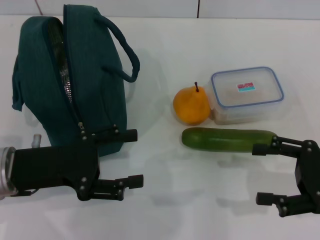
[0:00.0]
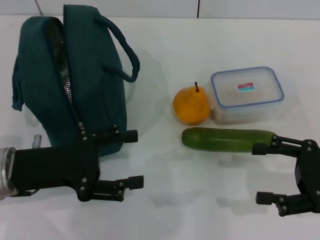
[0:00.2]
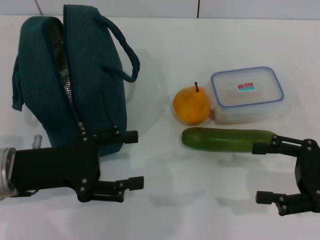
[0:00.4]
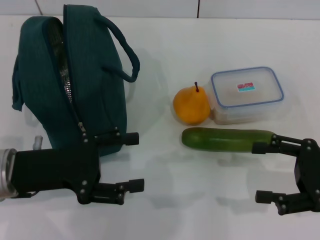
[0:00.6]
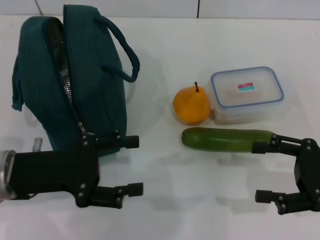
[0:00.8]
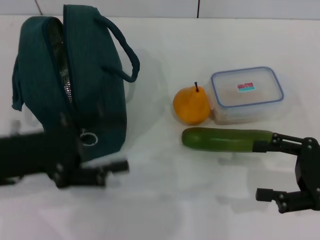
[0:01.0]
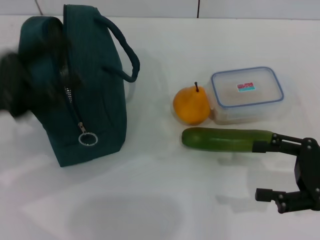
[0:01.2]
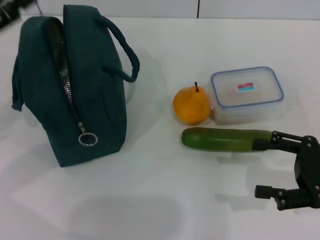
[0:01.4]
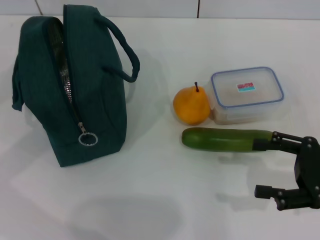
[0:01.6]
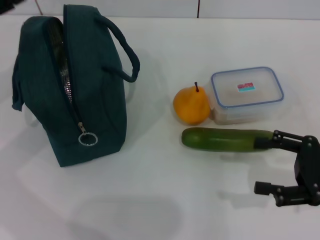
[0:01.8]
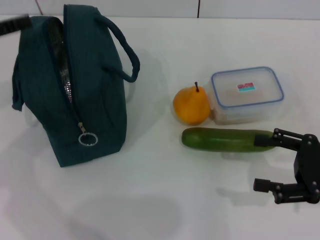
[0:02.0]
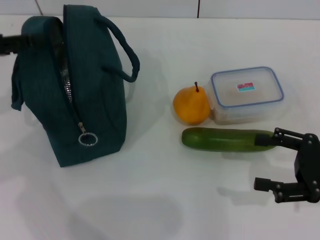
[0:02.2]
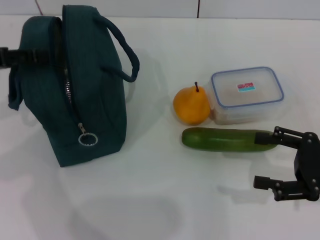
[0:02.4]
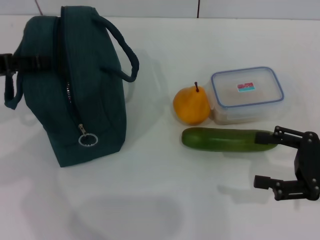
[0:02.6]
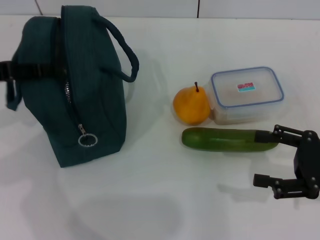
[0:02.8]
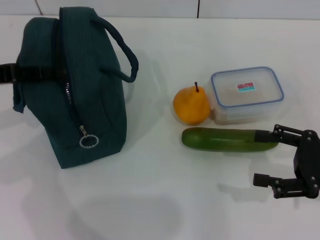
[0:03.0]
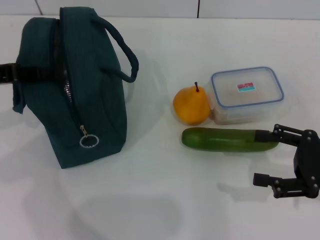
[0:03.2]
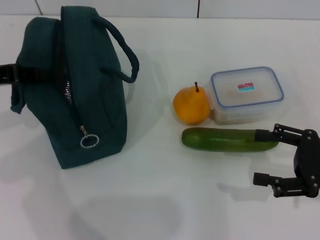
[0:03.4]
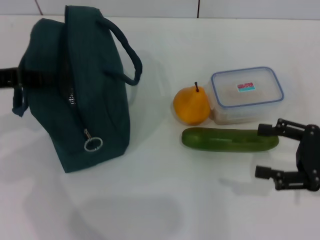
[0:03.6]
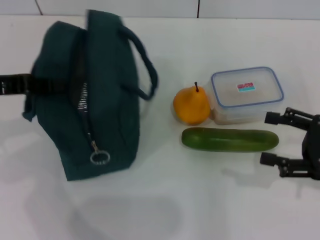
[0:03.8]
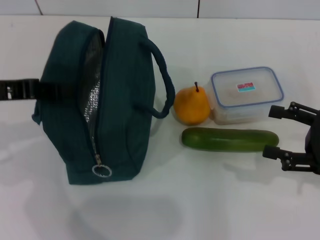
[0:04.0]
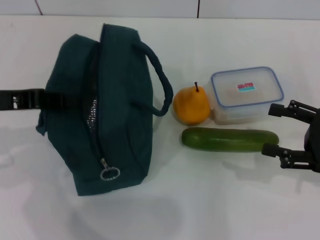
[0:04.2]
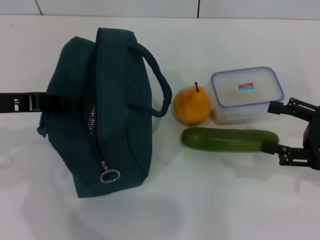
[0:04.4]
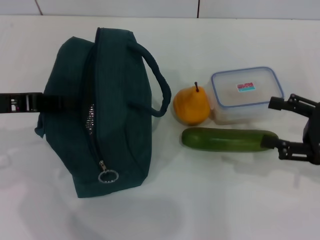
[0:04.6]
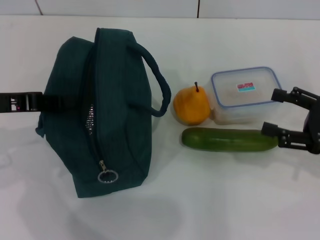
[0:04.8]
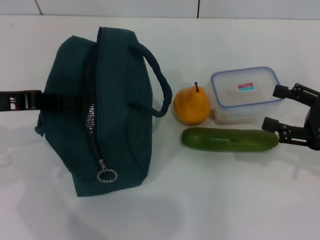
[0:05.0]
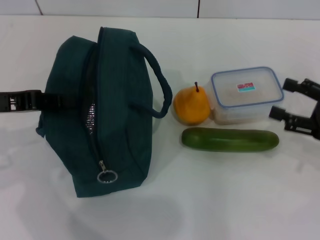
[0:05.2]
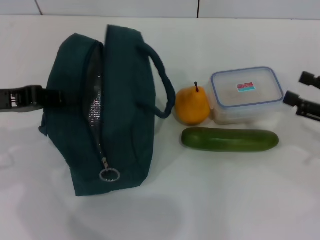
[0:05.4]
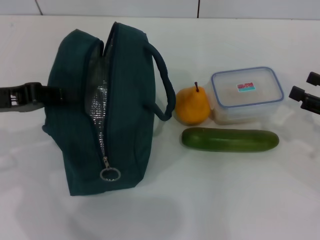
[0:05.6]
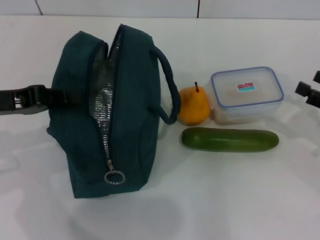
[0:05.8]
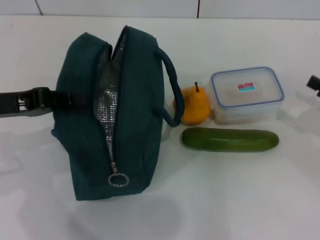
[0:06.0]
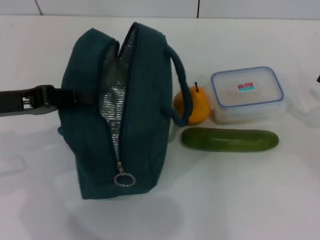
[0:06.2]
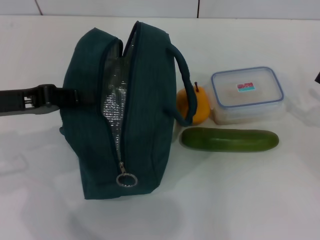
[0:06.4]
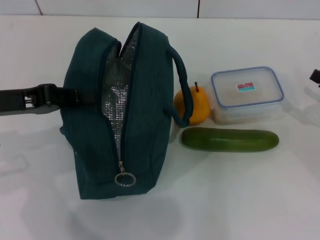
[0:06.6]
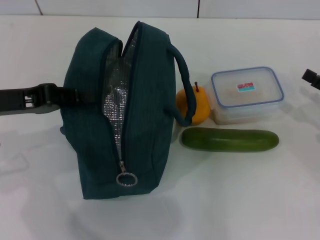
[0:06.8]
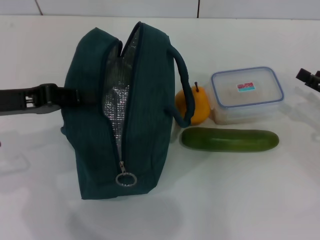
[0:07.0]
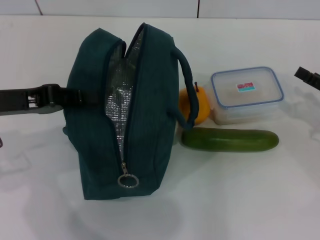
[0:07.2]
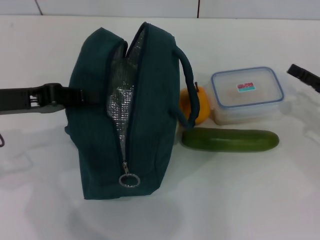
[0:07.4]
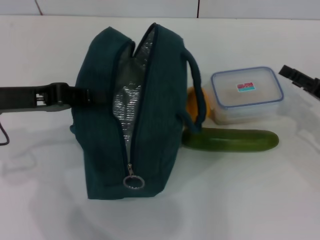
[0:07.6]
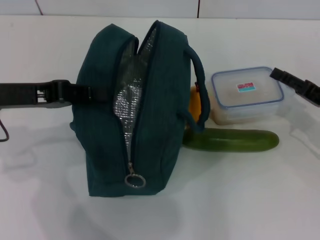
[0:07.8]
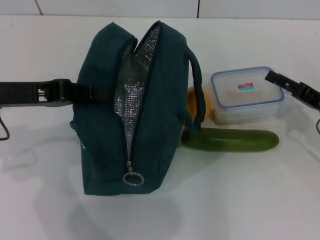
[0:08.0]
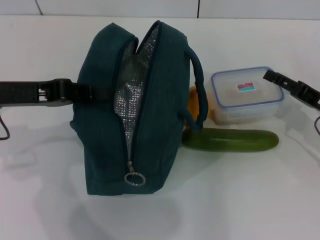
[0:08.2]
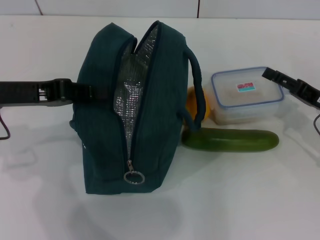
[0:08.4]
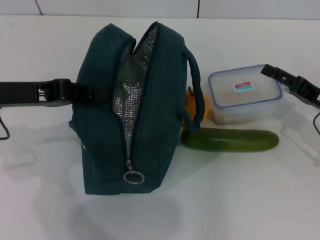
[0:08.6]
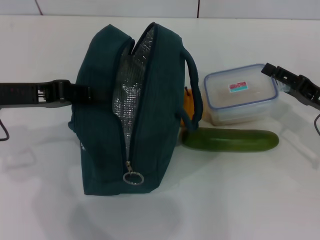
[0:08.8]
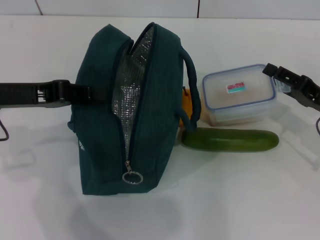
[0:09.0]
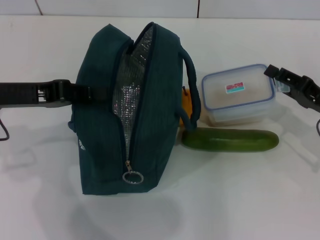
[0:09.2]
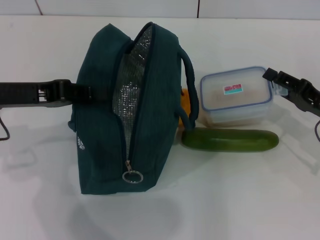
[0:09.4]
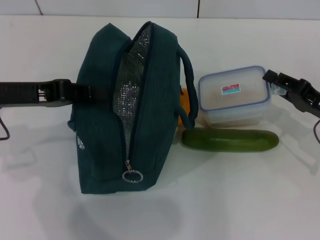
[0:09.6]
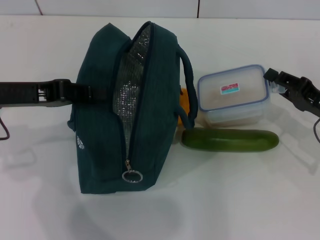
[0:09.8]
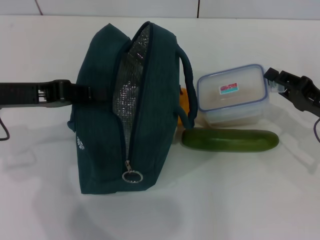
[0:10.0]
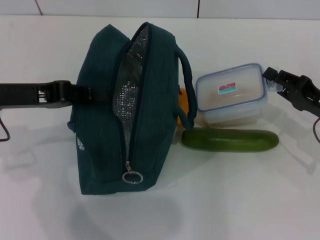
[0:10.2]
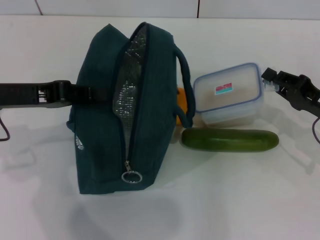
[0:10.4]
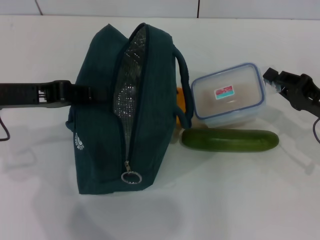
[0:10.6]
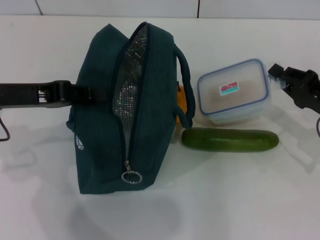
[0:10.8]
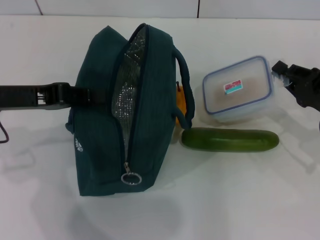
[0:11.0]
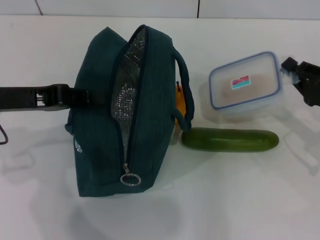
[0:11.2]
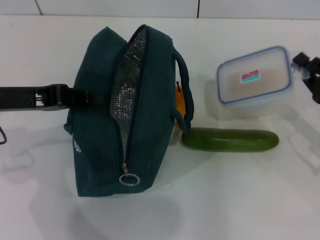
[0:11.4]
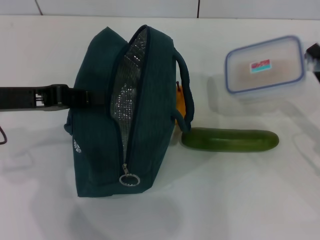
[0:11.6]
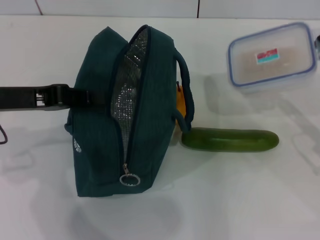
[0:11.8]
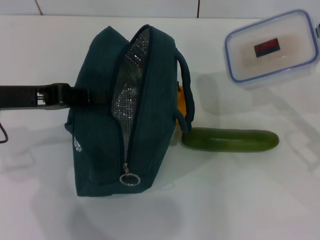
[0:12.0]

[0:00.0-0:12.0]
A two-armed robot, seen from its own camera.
Step, 0:00.0 to 0:04.4: Hold the lunch bag with your left hand.
Step, 0:04.6 to 0:10.4: Pick up the lunch box with your right hand.
0:00.0 to 0:01.6: The left gripper shifts approximately 15 cm to the left, forward and upward.
0:03.0 to 0:04.4: The left gripper closes its fingers.
0:04.4 to 0:06.0: The right gripper goes about 5 cm to the right.
0:06.0 to 0:07.6: The right gripper shifts by roughly 5 cm.
0:07.6 to 0:09.0: The grippers move only a little.
0:09.0 to 0:10.4: The right gripper closes.

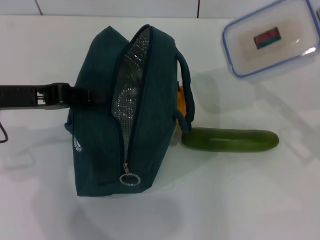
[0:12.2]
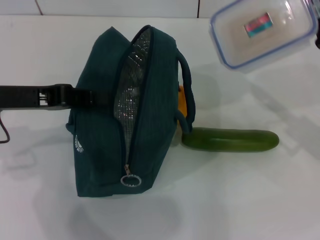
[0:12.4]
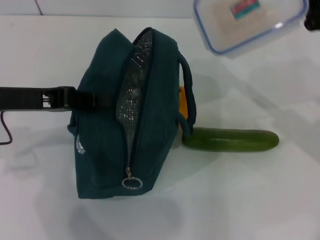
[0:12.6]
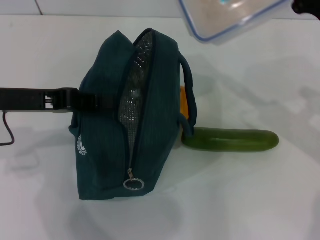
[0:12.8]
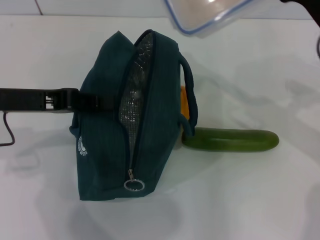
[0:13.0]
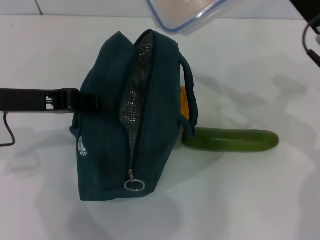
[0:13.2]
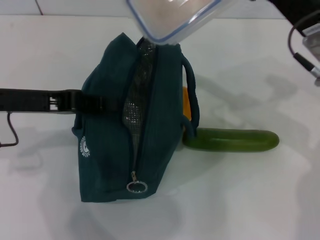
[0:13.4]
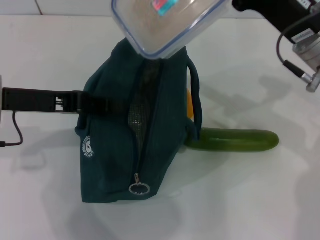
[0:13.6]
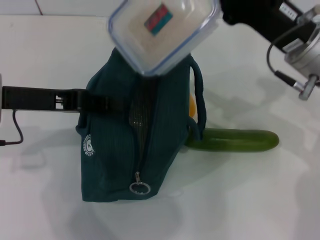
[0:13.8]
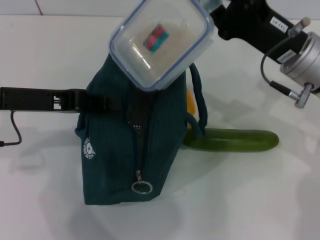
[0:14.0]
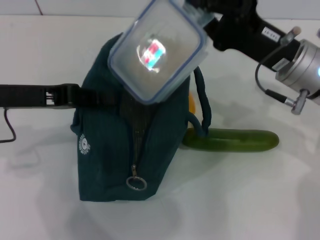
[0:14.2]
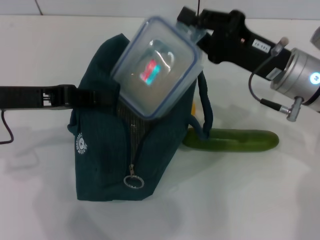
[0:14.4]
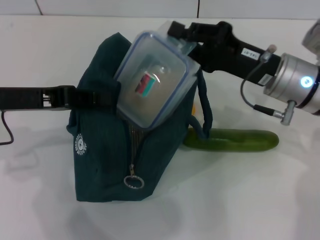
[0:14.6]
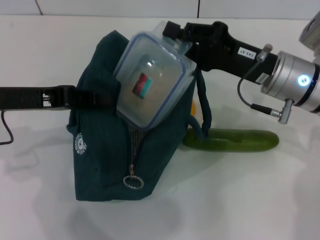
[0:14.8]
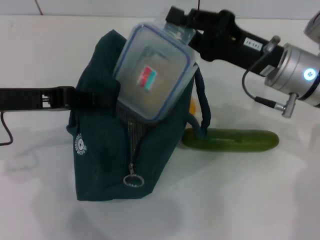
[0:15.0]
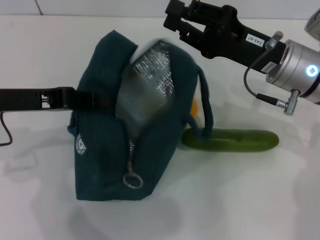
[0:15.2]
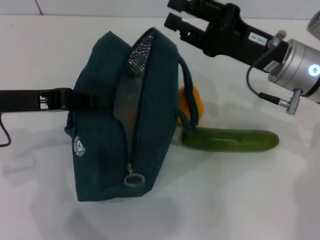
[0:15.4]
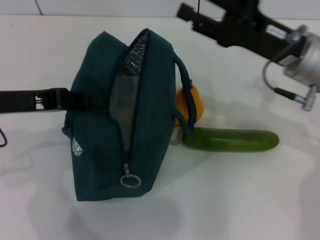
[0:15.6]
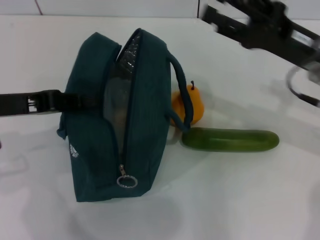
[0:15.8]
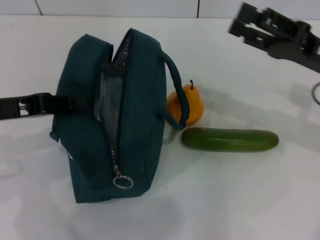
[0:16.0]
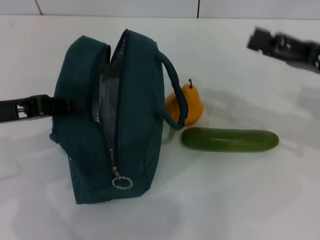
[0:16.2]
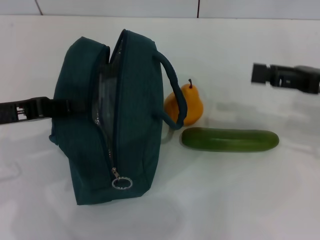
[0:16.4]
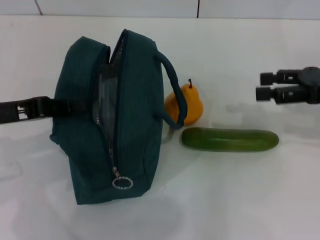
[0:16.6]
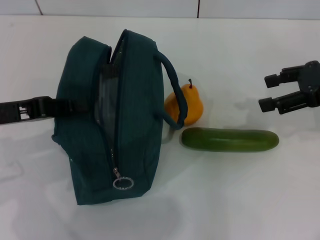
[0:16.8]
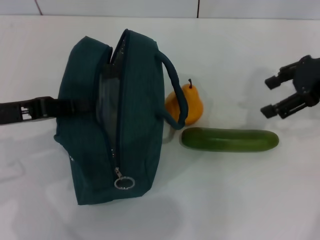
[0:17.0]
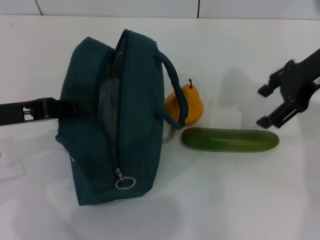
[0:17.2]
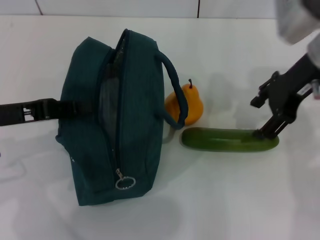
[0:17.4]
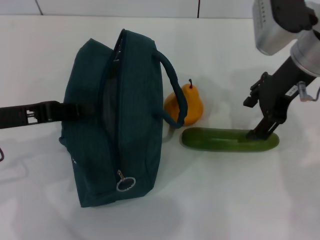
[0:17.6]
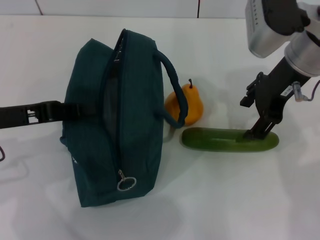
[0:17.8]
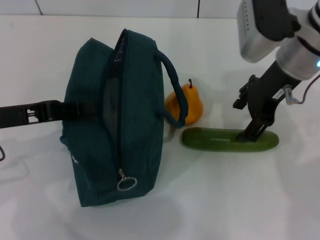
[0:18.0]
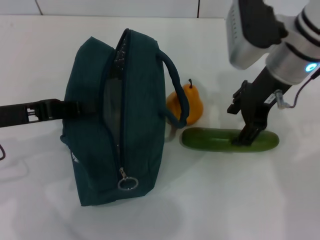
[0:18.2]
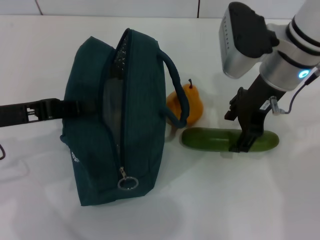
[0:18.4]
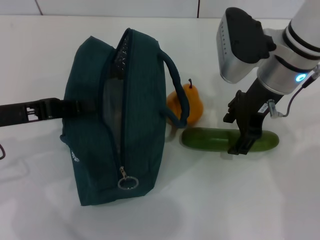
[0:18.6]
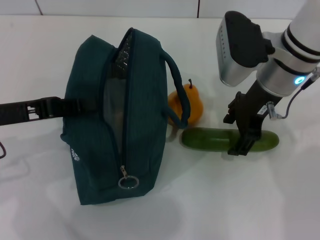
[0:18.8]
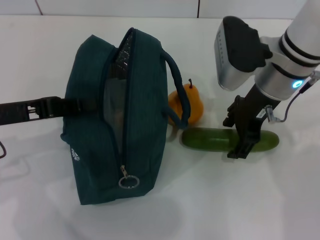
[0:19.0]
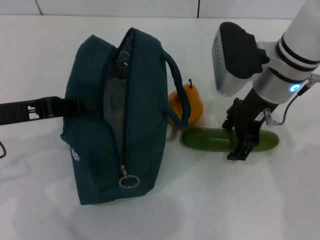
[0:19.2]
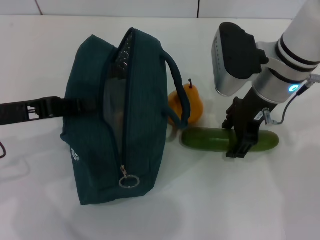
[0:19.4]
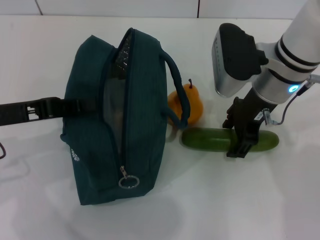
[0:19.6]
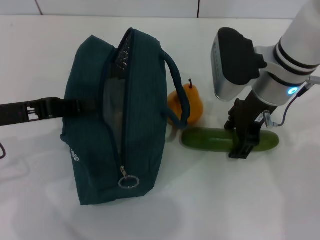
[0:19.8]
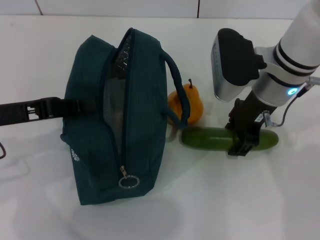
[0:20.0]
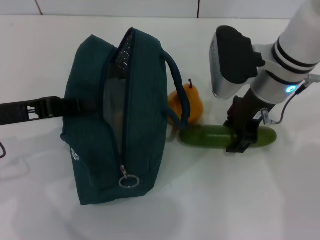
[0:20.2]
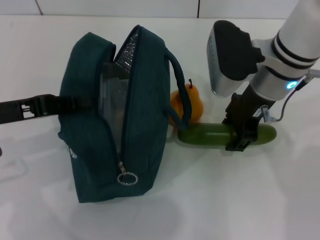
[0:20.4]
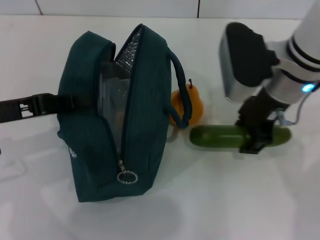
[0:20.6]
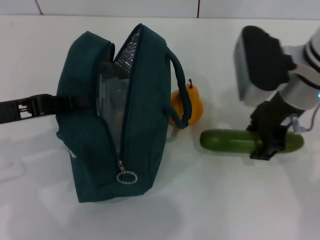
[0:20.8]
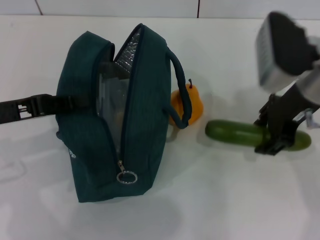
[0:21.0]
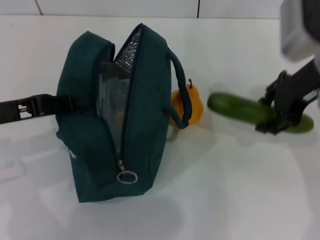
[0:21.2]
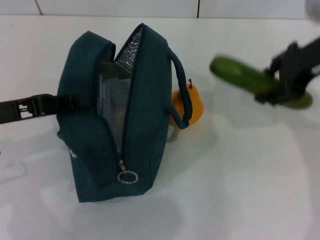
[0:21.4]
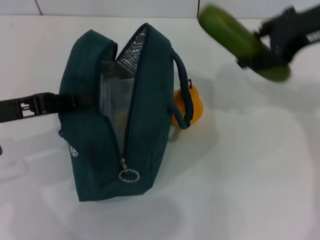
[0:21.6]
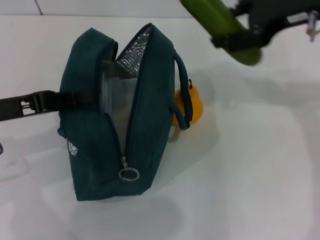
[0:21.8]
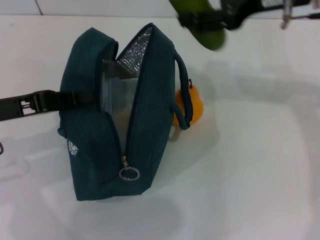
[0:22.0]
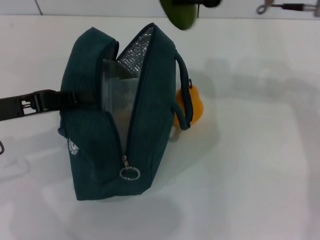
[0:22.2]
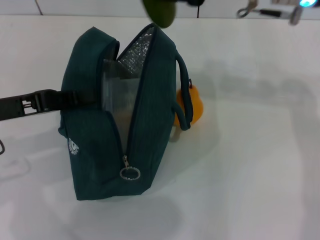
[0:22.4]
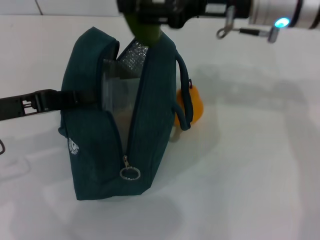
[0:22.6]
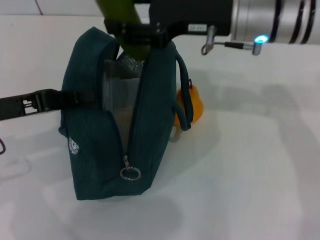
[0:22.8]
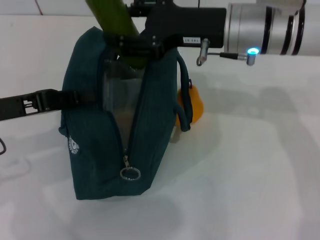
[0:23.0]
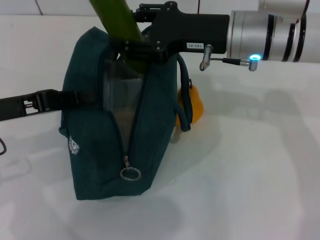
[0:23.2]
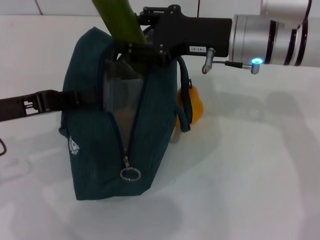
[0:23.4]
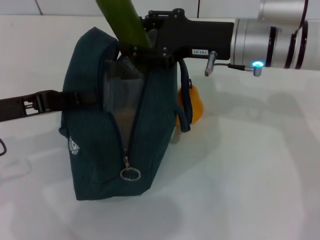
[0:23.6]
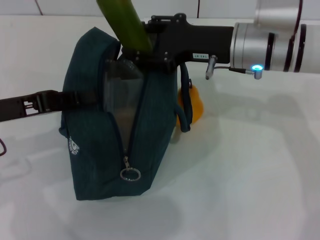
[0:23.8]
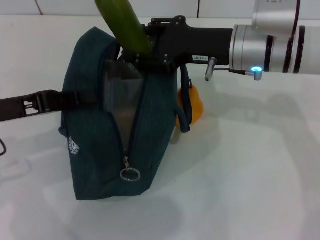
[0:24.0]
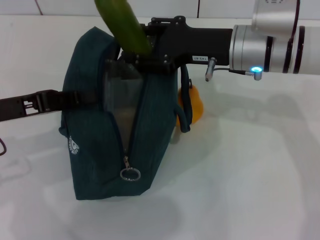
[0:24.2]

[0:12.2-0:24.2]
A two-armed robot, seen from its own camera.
Step, 0:12.2 to 0:15.4: Place the lunch box into the lunch bag with your right hand.
Step, 0:15.8 to 0:20.0: Pick up the cucumber with your right hand.
0:12.2 to 0:13.8: The right gripper travels to the left and upward by about 15 cm.
0:15.2 to 0:16.6: The right gripper heads to the right, covering some 15 cm, and opens.
0:16.6 to 0:18.2: The right gripper travels to the left by approximately 15 cm.
0:18.2 to 0:19.8: The grippers make only small movements.
0:19.8 to 0:21.2: The right gripper travels to the right and upward by approximately 10 cm.
0:21.2 to 0:22.6: The right gripper shifts some 5 cm to the left.
0:22.6 to 0:24.2: The right gripper travels downward by roughly 5 cm.
